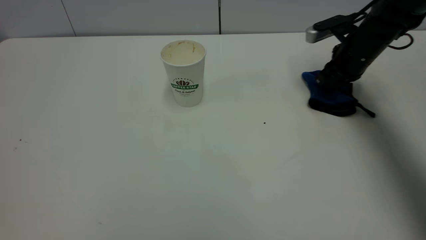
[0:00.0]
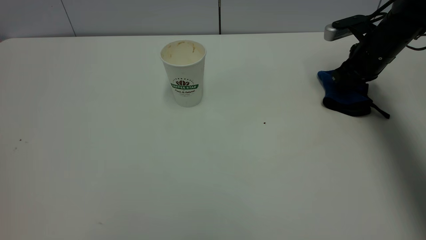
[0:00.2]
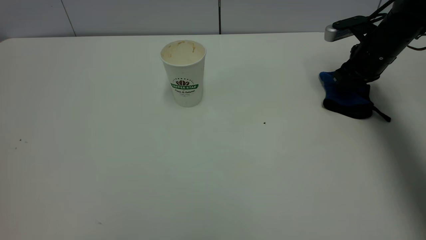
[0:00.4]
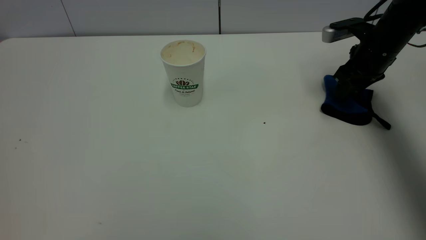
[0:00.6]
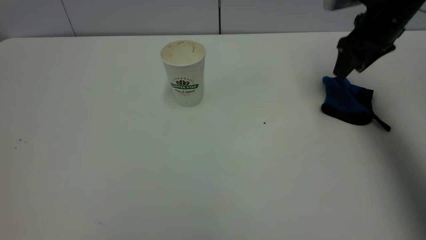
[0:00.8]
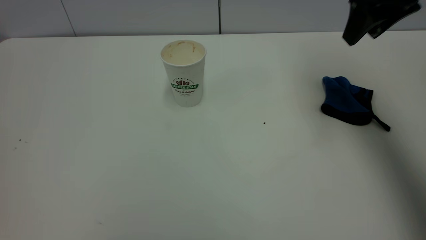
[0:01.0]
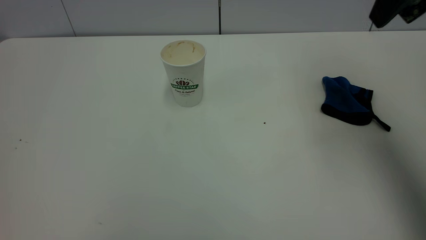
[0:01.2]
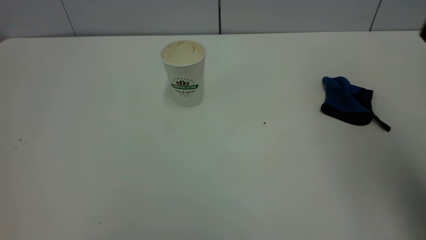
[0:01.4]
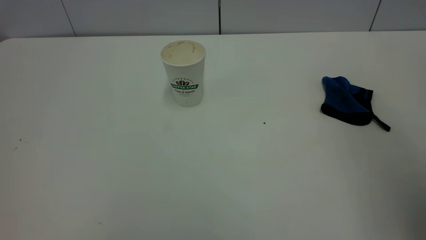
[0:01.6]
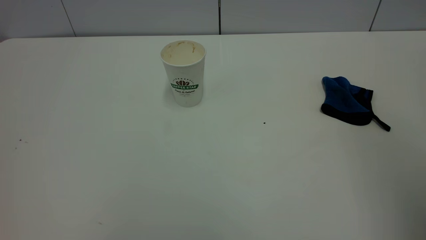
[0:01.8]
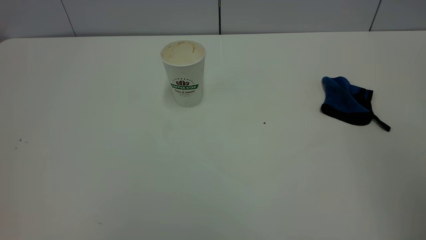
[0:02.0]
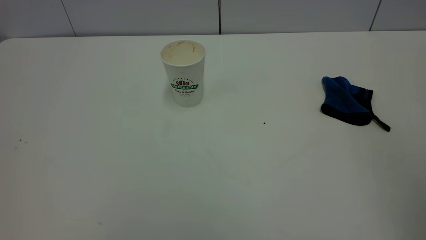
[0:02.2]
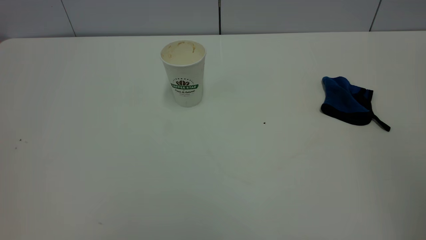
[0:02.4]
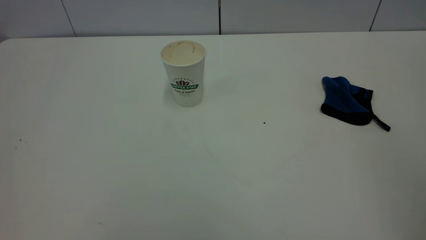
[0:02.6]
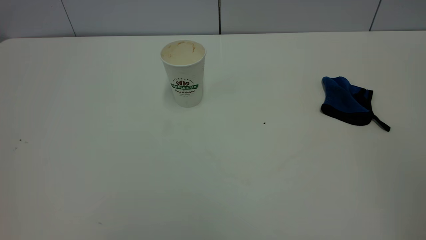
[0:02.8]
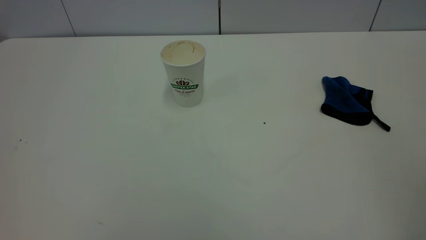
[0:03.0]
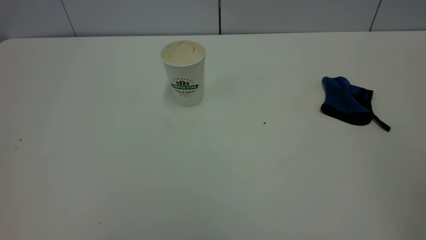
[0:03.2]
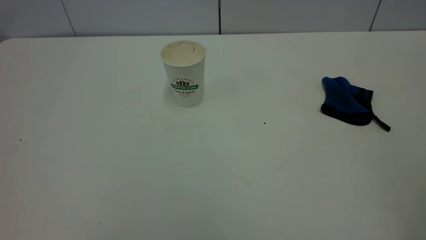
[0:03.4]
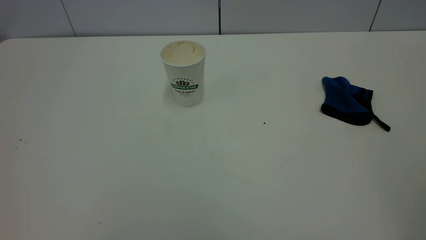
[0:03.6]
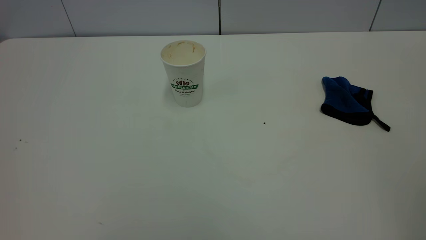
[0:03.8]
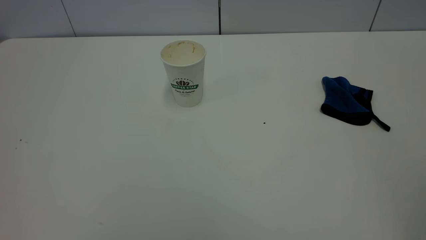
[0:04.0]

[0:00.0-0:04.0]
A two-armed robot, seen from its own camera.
Task of the whole recording: the left gripper pick up the fallen cup and place it upright, the right gripper grasp the blue rag and wipe the tea stain on the table, the right gripper put the blue rag back in its original position.
0:00.0 to 0:01.4: The right gripper heads upward and backward, covering some 35 cm, and opens up.
0:01.4 to 0:02.6: The right gripper is displaced backward by approximately 20 cm.
